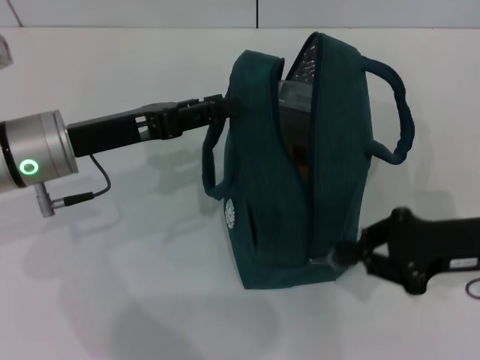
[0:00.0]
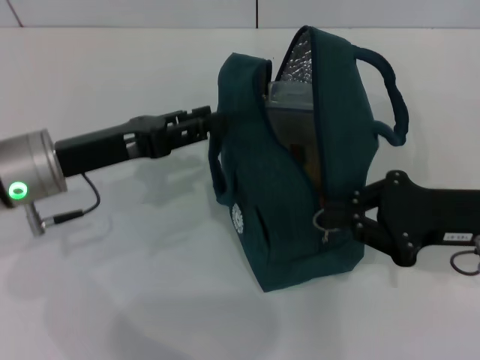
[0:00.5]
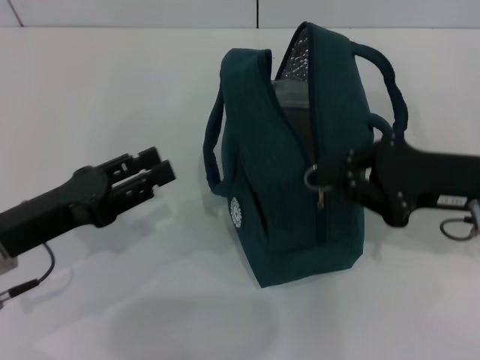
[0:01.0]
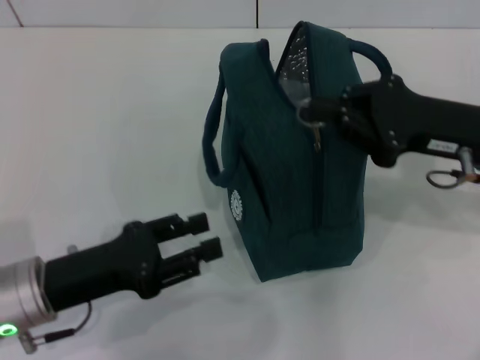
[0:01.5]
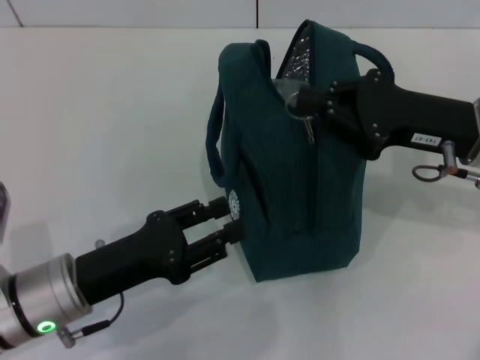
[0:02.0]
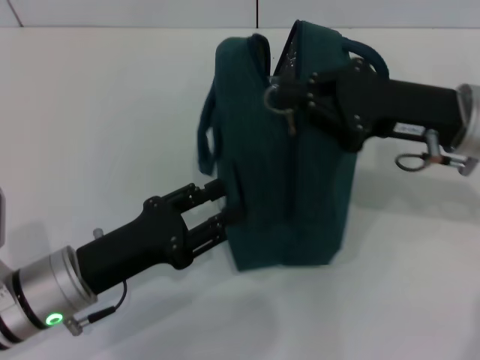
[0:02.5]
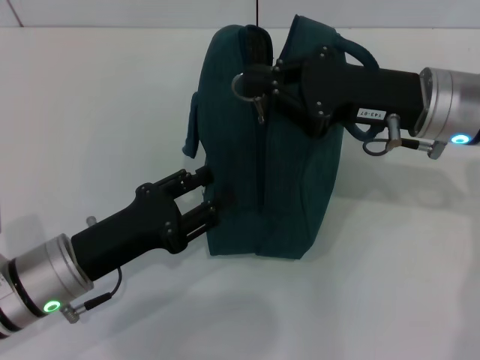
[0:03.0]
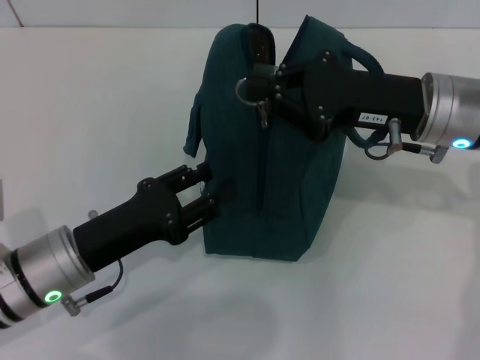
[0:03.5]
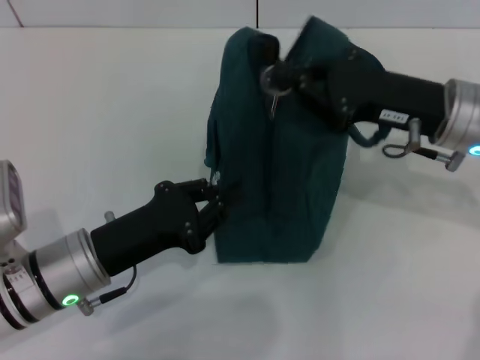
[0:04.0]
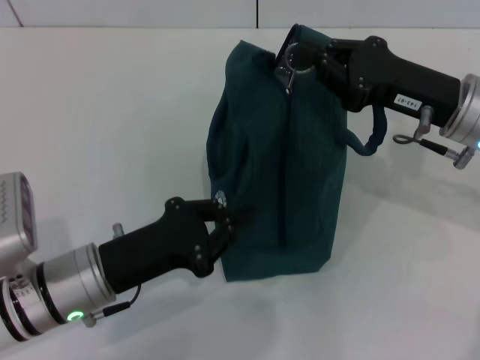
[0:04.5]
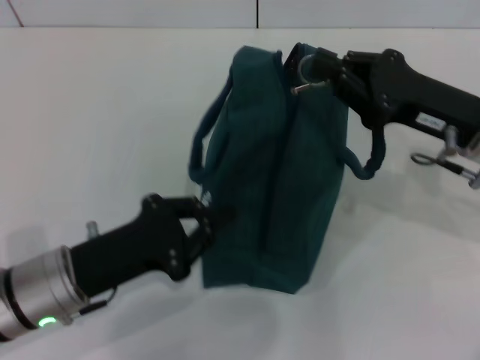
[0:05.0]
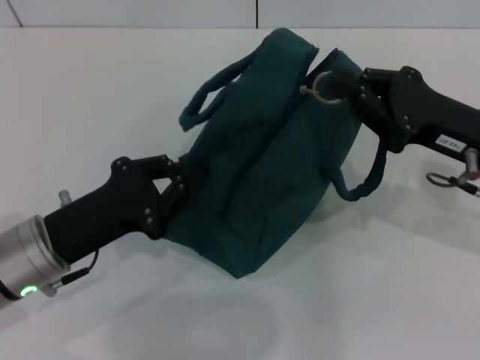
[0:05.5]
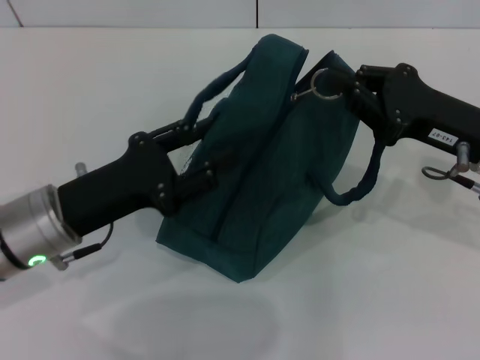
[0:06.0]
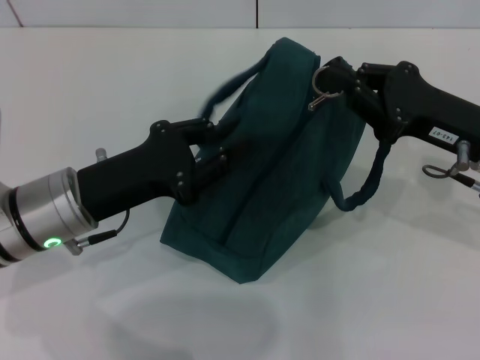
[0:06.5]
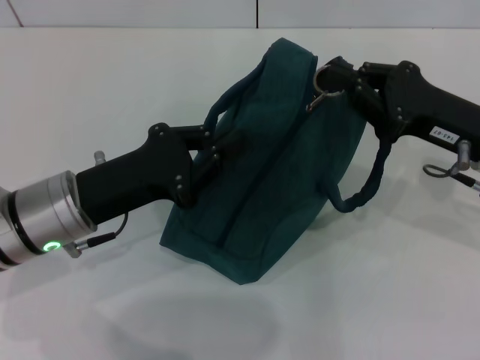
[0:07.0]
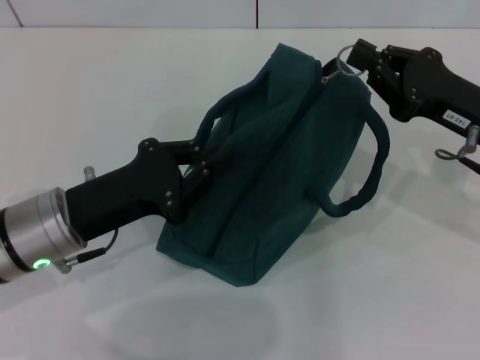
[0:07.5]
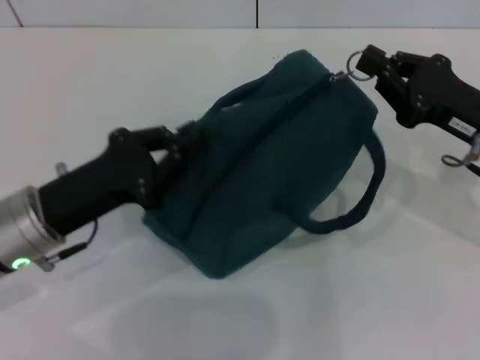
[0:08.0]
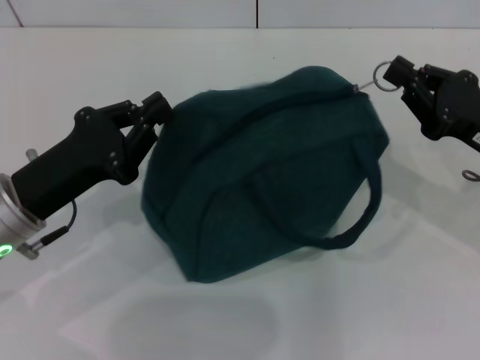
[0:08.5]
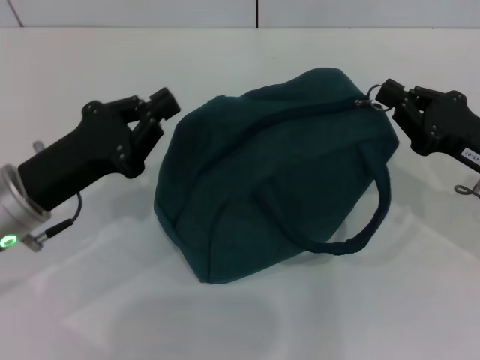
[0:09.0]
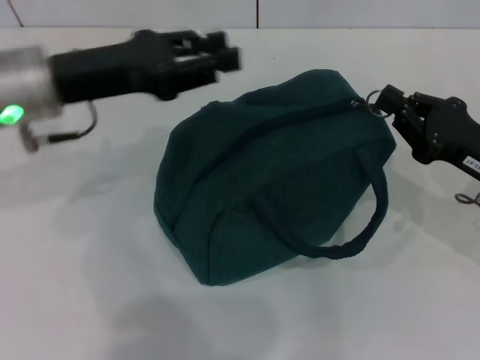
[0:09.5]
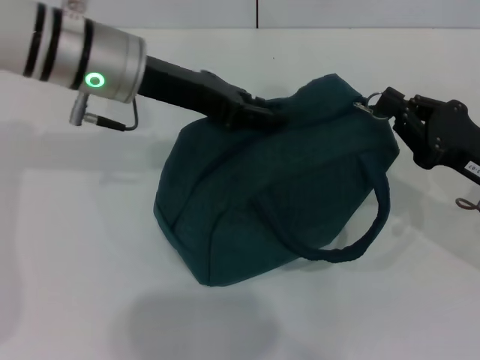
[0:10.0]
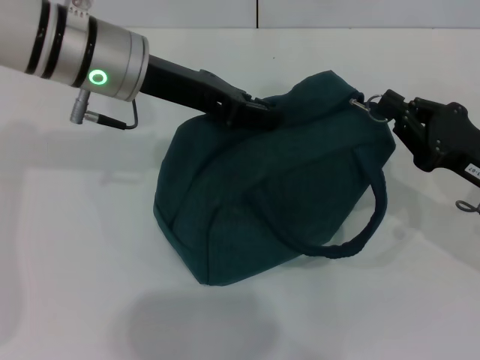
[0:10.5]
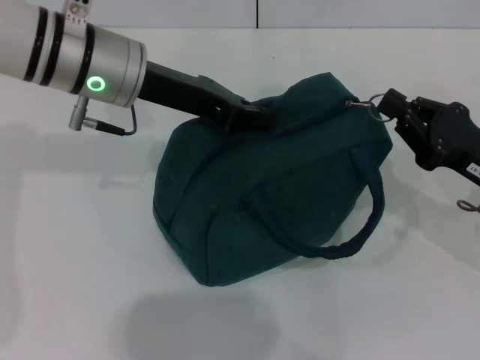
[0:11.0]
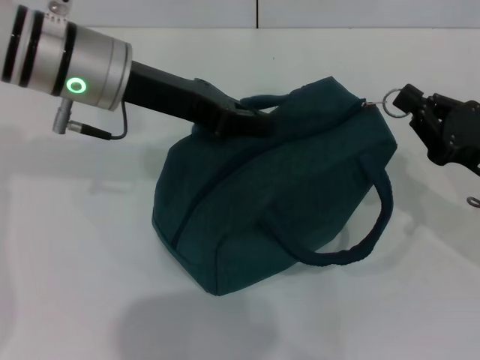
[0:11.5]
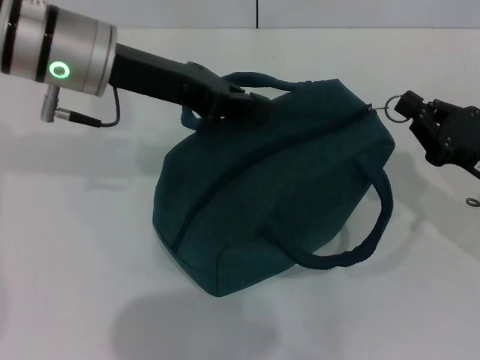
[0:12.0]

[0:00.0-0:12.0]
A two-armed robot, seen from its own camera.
0:00.0 to 0:02.0: The left gripper travels backward and downward by some 15 cm, while the right gripper goes approximately 5 cm upward and forward.
0:02.0 to 0:04.0: The left gripper closes.
0:06.0 to 0:08.0: The grippers stay close to where they were, moving slightly.
0:08.0 to 0:10.0: The left gripper is displaced forward, upward and to the right by about 20 cm, and opens up.
0:10.0 to 0:12.0: The left gripper closes up.

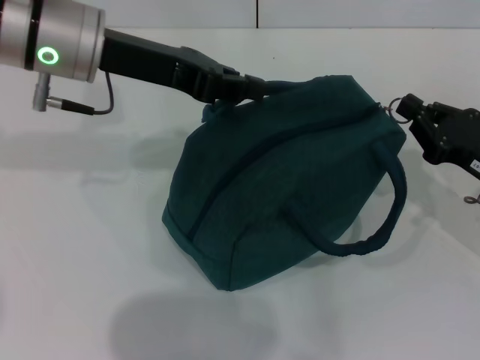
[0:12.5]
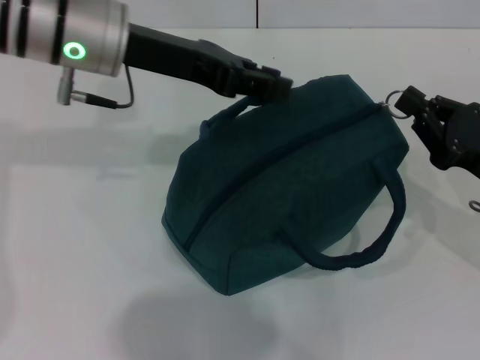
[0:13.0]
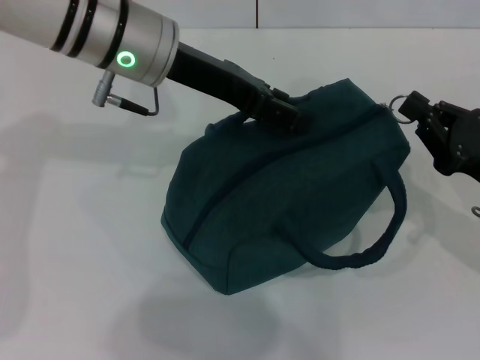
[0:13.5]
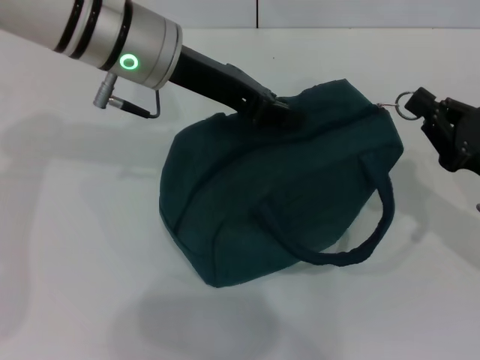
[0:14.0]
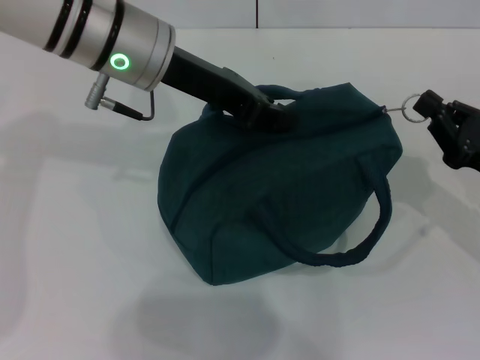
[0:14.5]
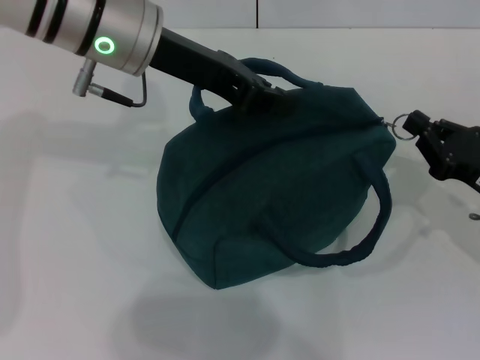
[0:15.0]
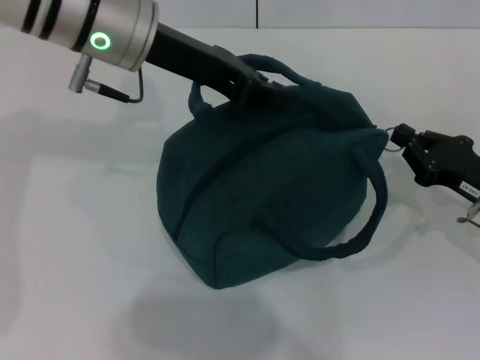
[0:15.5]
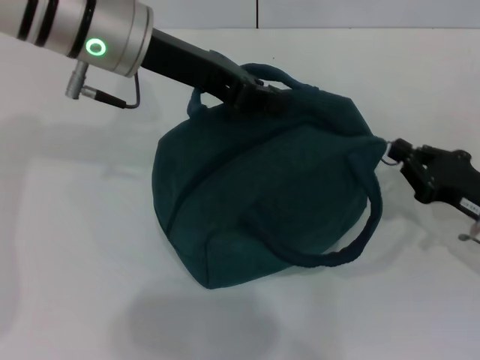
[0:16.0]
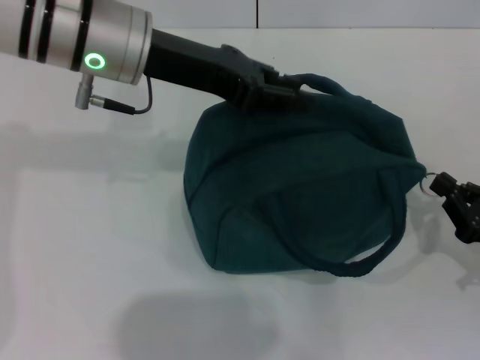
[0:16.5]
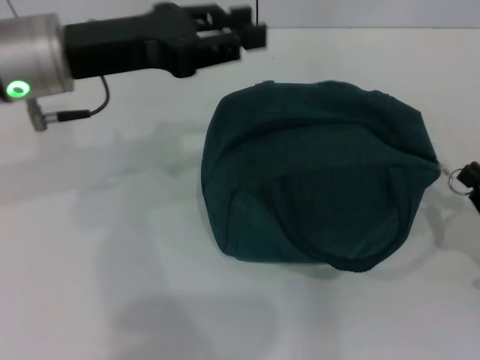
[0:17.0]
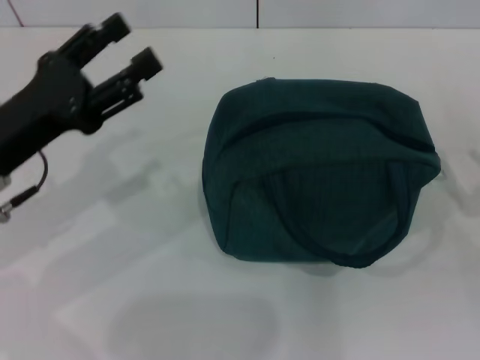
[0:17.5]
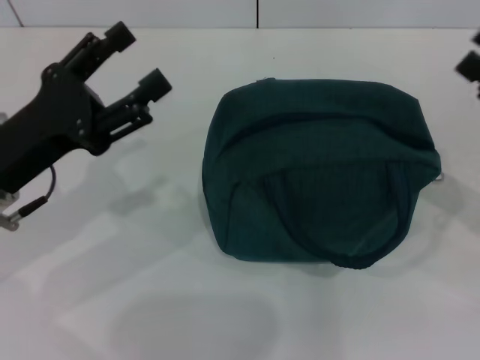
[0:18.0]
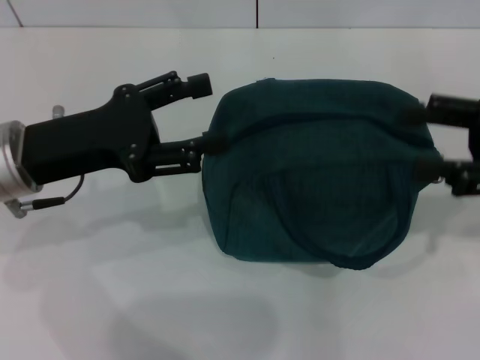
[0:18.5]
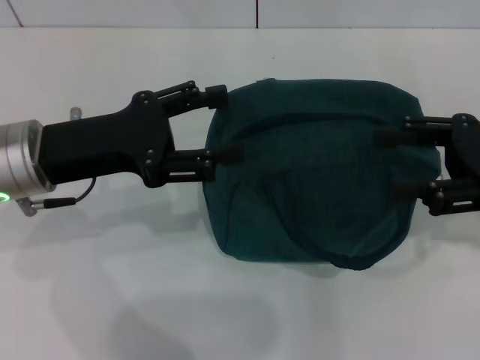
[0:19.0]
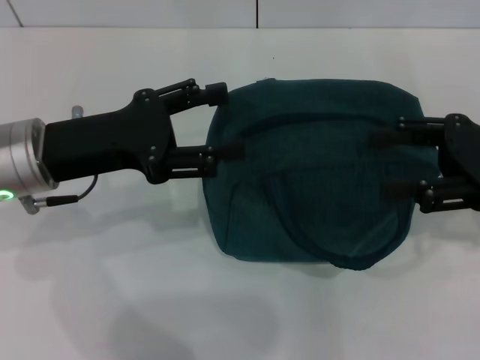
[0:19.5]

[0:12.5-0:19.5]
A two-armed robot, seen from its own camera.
Step, 0:12.5 to 0:16.5: Hold the lunch bag with your left hand.
0:12.5 to 0:14.5: The left gripper heads to the right, covering roughly 5 cm, and opens, then closes once more.
0:14.5 to 0:16.0: The grippers move only a little.
0:16.0 to 0:17.5: The left gripper travels to the left, backward and downward by roughly 20 cm, and opens up; the right gripper goes roughly 5 cm to the right, and opens its fingers.
0:17.5 to 0:19.5: The right gripper travels upward, forward and to the left by roughly 15 cm, and opens its fingers.
